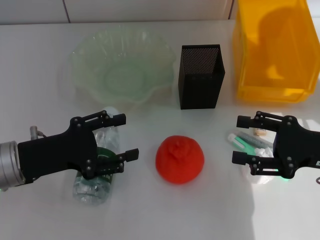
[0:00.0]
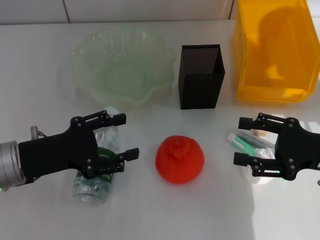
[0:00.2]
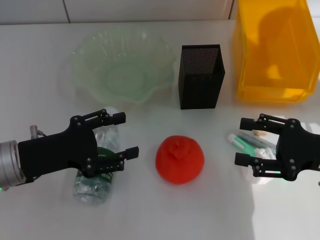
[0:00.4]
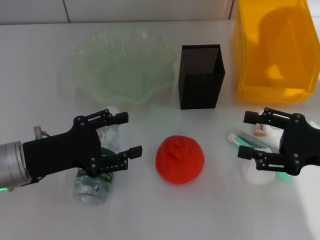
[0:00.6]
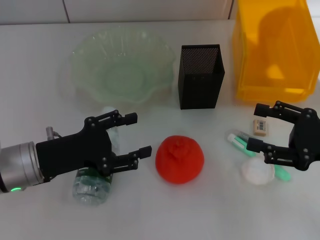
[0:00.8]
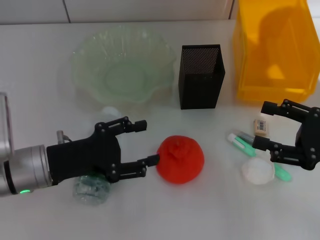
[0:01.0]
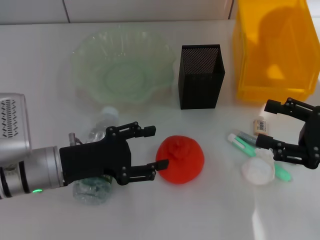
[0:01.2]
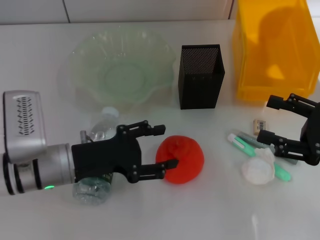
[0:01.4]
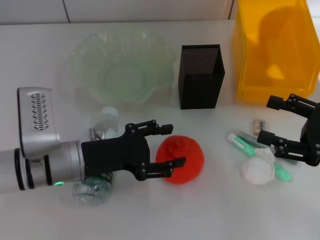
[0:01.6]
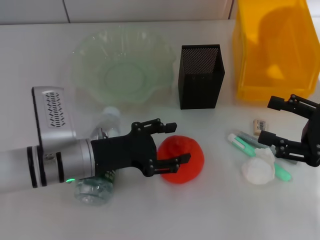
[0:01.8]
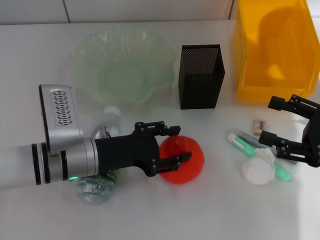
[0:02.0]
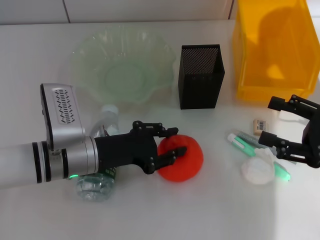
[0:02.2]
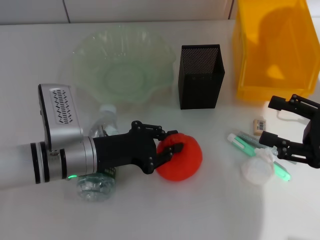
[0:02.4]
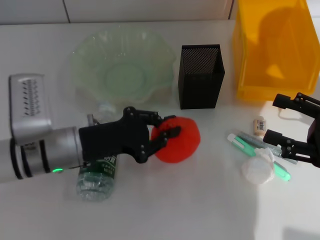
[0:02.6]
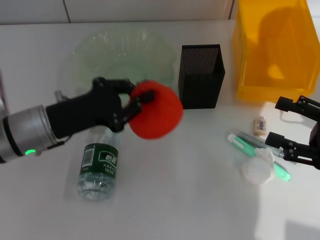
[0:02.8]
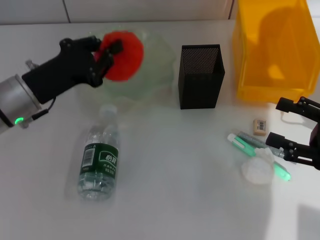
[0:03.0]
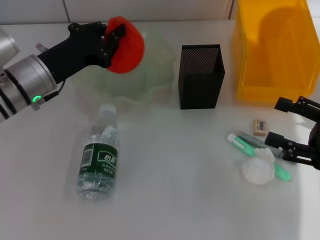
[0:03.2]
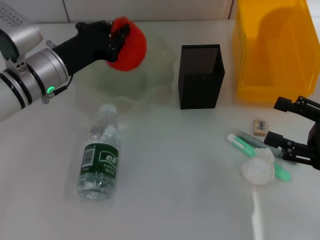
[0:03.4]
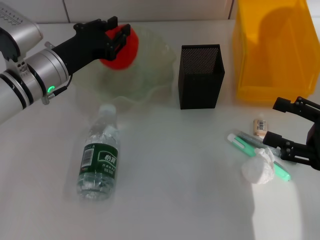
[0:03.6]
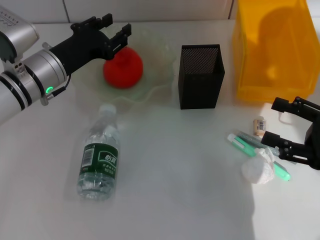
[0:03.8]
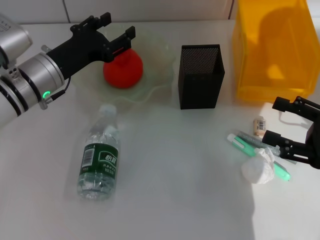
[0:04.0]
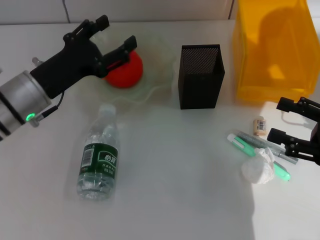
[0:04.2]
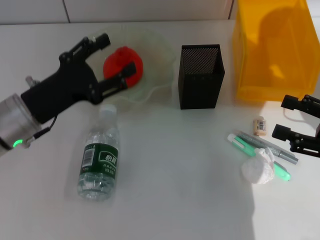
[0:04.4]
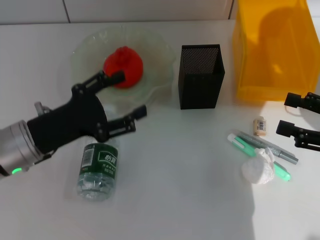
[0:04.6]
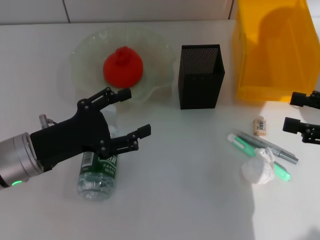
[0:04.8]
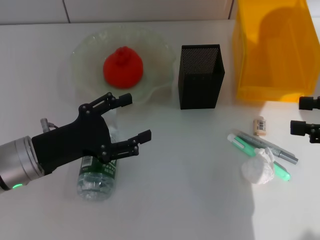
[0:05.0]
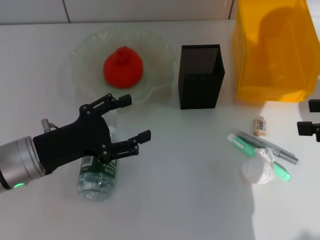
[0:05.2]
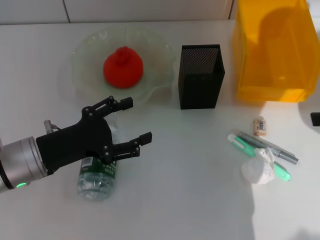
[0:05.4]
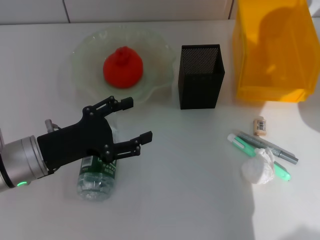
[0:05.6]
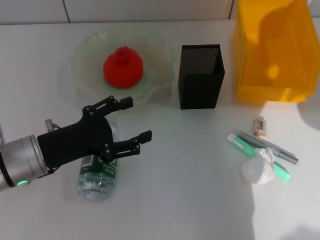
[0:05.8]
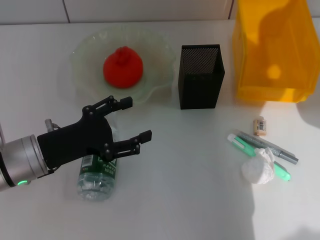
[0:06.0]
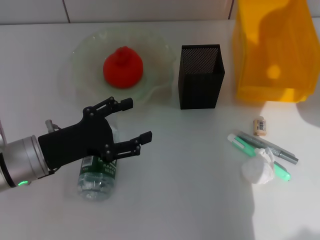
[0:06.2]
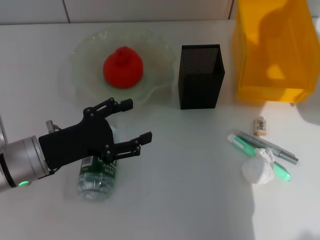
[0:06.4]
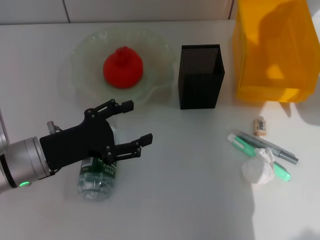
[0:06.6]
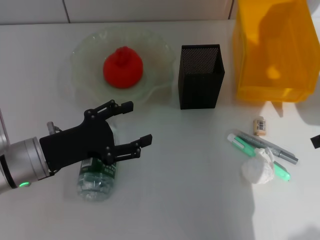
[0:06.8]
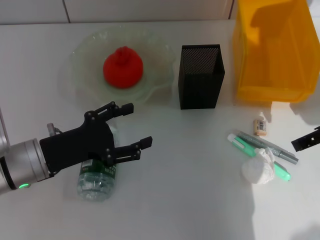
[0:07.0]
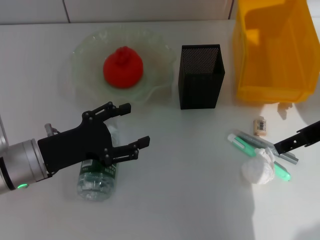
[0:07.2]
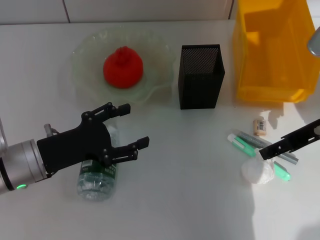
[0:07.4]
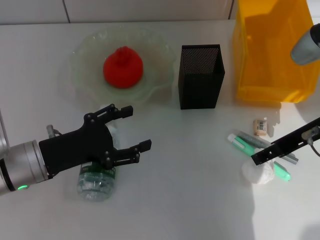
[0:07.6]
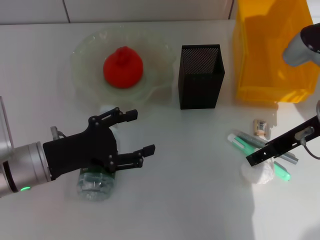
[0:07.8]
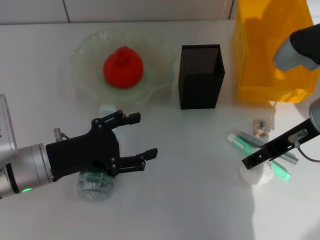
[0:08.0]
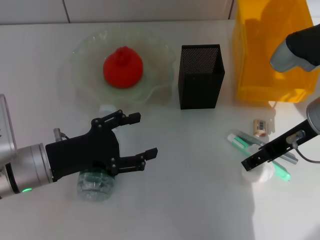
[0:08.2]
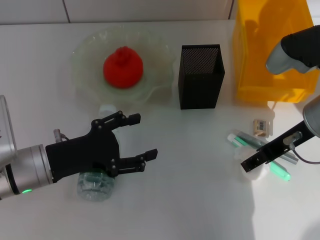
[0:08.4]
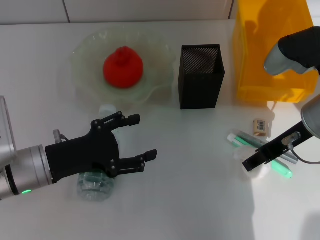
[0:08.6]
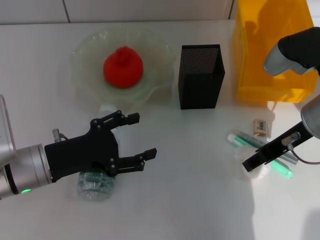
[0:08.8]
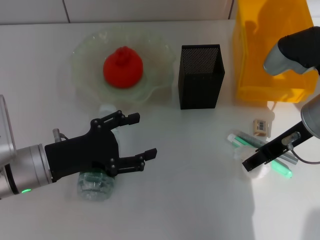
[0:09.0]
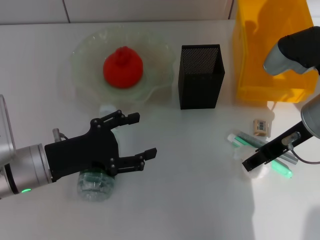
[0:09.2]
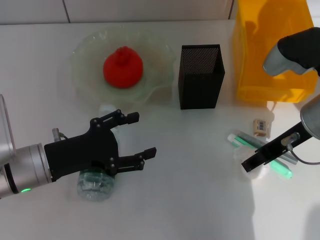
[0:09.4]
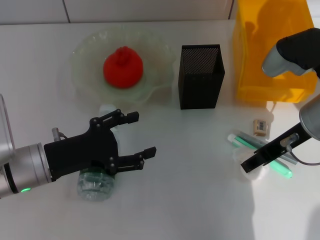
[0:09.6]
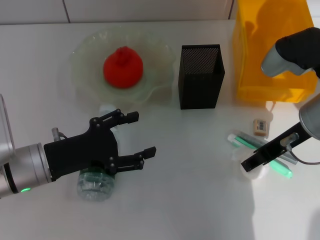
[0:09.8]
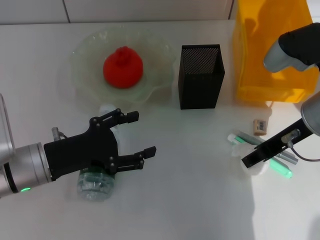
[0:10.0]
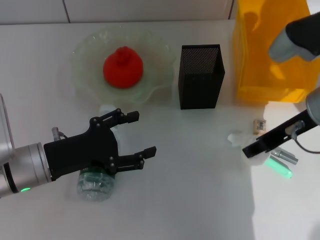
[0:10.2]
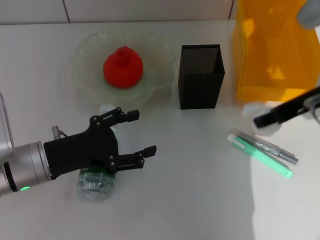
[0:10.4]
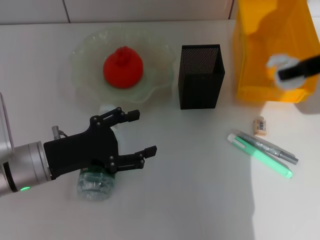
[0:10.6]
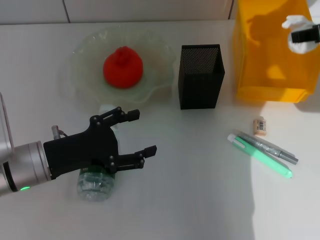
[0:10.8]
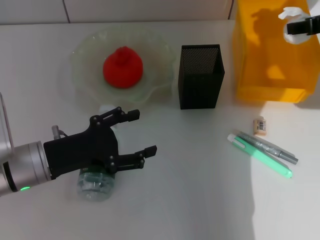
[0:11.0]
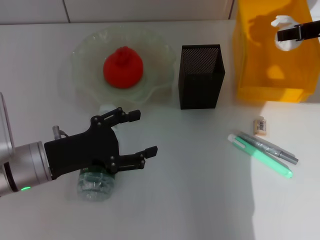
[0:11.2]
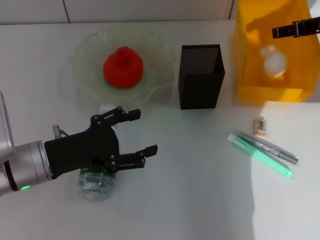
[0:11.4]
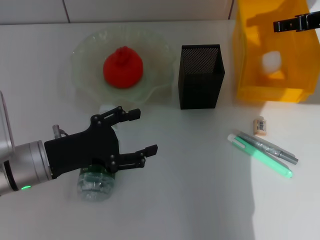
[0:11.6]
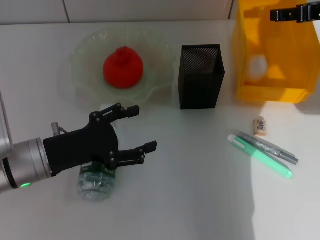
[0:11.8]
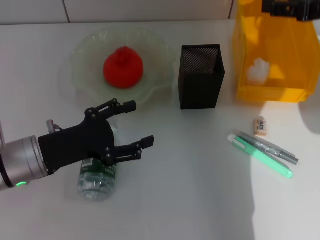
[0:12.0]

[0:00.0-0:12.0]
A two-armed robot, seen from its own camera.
Step, 0.0 to 2.4 s: Grab the orange with the left hand.
Step, 2.6 to 3.8 s: Place the orange into the fruit bowl with the left hand.
Step, 4.0 to 9.6 s: Grab the paper ball with the right hand.
Step, 10.0 to 11.6 s: Place the paper ball into the trash can with the right hand.
0.0 to 1.6 s: The left gripper heads to the right, covering some 5 cm.
1.6 to 3.0 s: The left gripper goes approximately 10 cm forward, upward and to the left, and closes.
3.0 to 4.4 s: The left gripper opens up.
4.4 to 6.0 s: The right gripper travels upward by roughly 15 cm.
6.0 to 7.6 s: The right gripper moves to the left and downward, about 15 cm.
7.6 to 9.0 s: The grippers stay close to where they were, moving slightly.
9.0 to 10.4 s: The right gripper travels upward by approximately 5 cm.
10.4 to 12.0 s: The right gripper moves to the right, roughly 5 cm, travels forward and back again, about 10 cm each way, and opens.

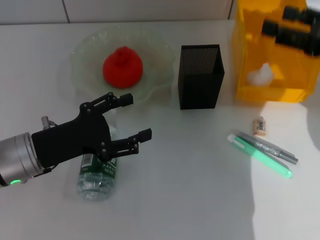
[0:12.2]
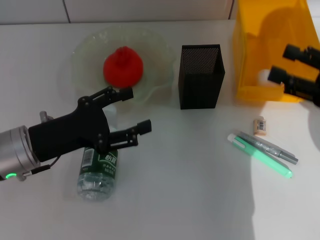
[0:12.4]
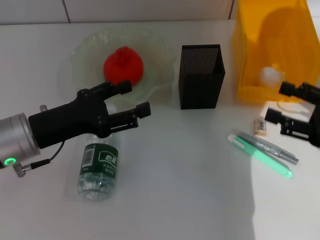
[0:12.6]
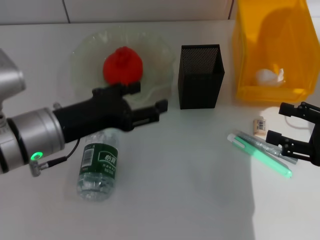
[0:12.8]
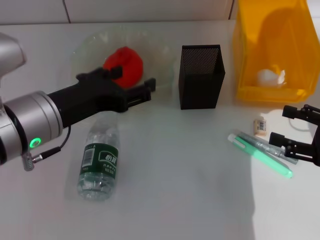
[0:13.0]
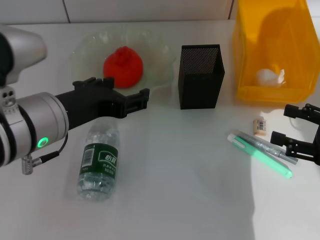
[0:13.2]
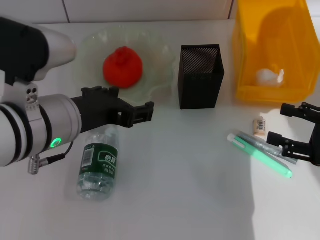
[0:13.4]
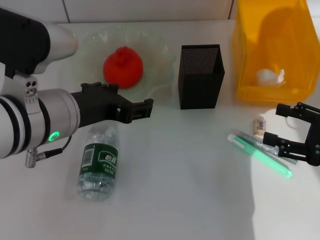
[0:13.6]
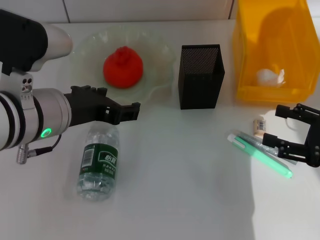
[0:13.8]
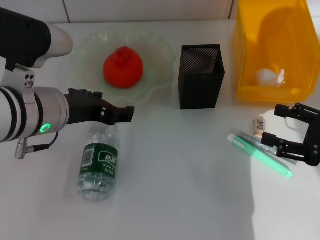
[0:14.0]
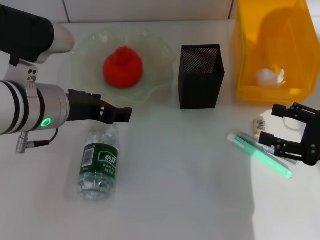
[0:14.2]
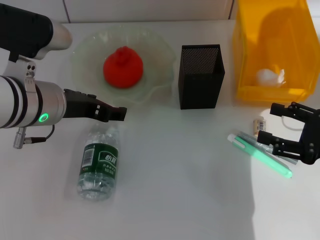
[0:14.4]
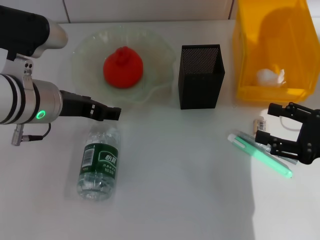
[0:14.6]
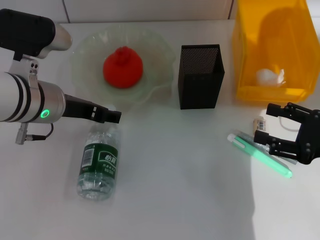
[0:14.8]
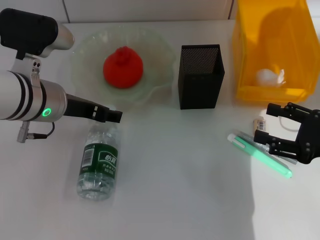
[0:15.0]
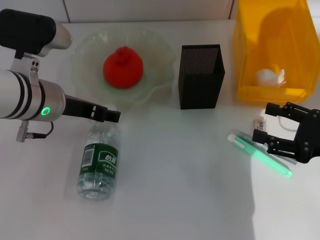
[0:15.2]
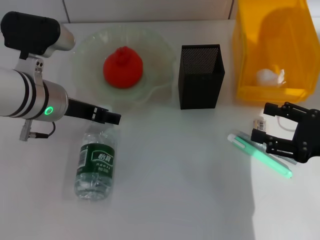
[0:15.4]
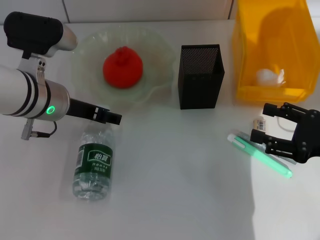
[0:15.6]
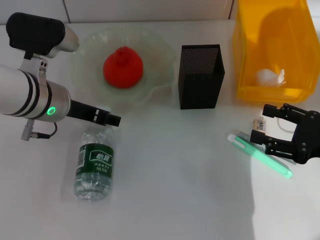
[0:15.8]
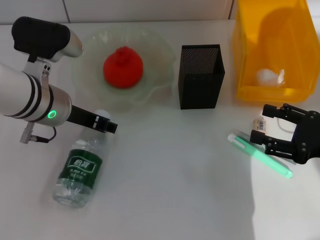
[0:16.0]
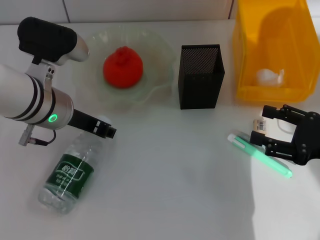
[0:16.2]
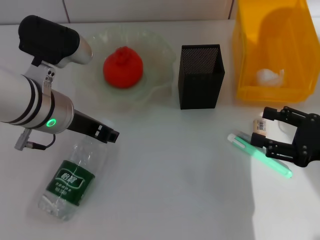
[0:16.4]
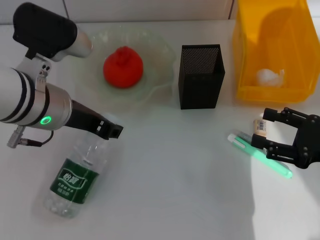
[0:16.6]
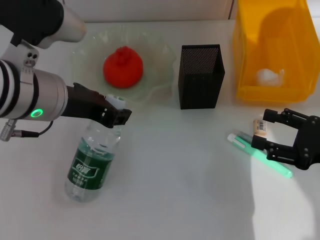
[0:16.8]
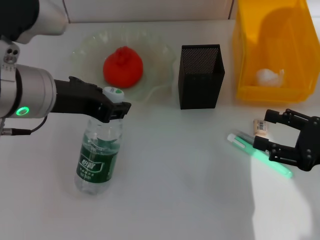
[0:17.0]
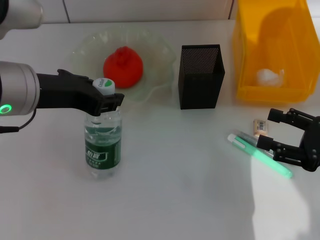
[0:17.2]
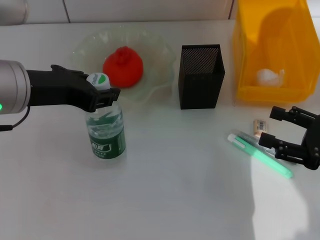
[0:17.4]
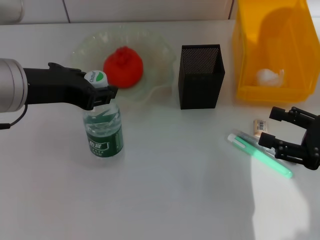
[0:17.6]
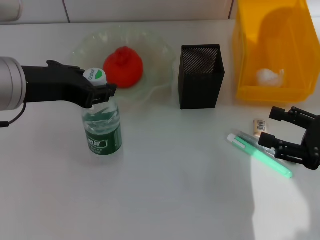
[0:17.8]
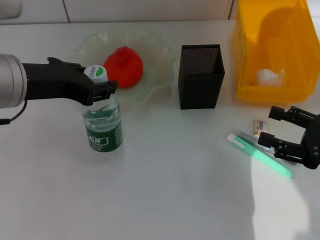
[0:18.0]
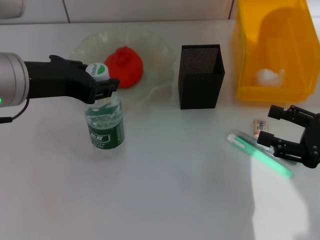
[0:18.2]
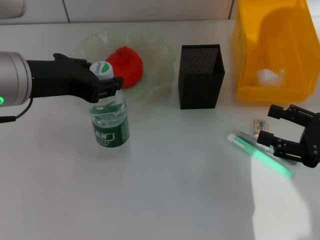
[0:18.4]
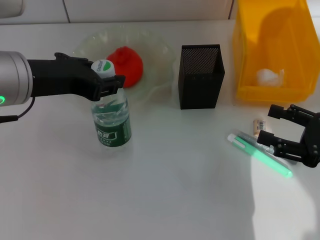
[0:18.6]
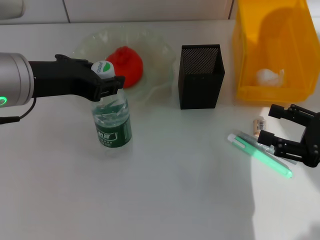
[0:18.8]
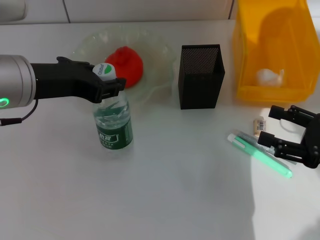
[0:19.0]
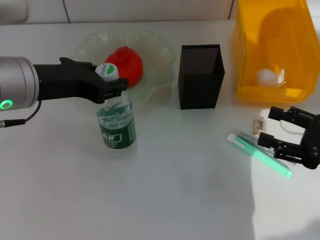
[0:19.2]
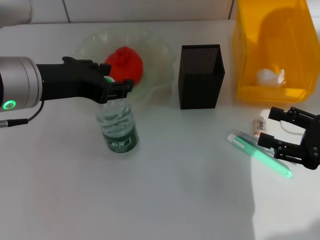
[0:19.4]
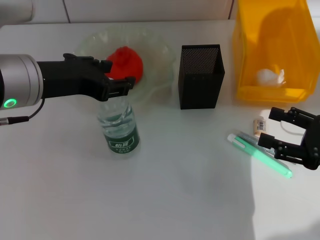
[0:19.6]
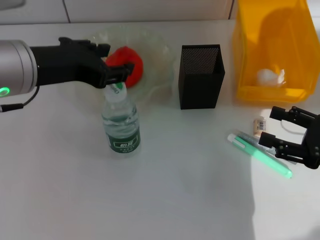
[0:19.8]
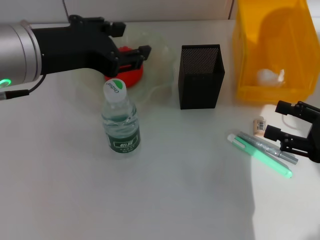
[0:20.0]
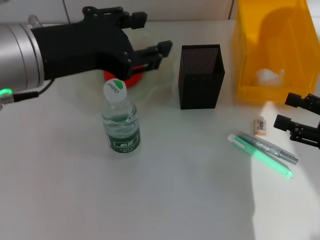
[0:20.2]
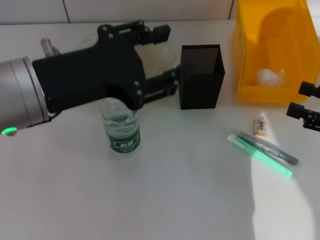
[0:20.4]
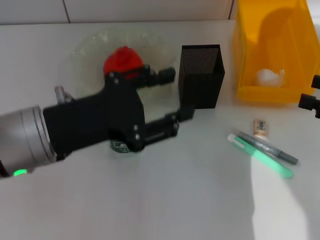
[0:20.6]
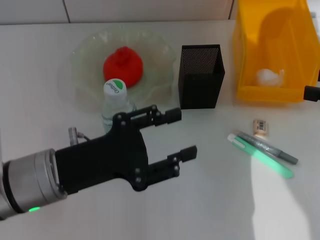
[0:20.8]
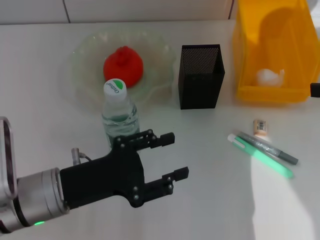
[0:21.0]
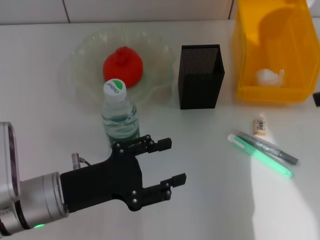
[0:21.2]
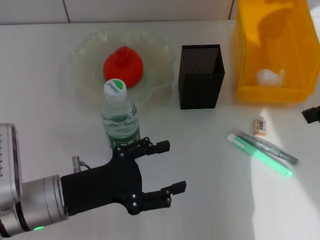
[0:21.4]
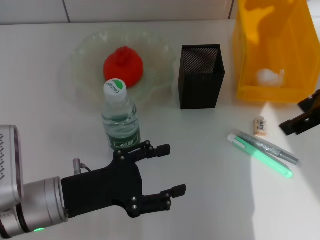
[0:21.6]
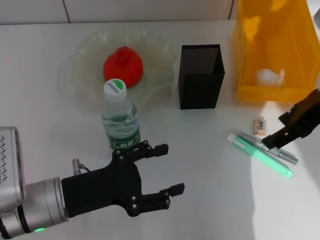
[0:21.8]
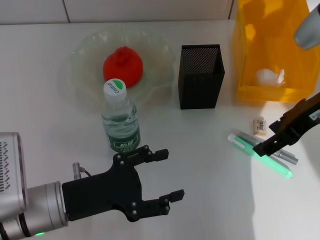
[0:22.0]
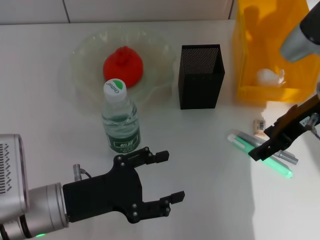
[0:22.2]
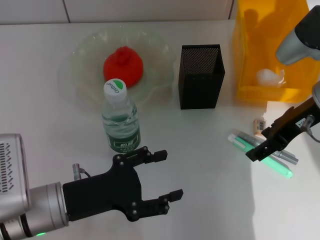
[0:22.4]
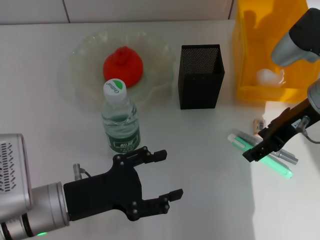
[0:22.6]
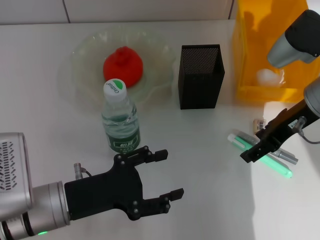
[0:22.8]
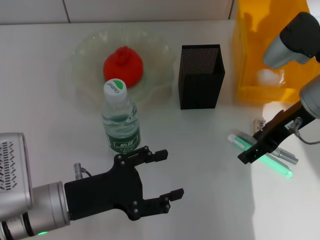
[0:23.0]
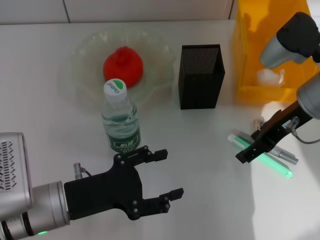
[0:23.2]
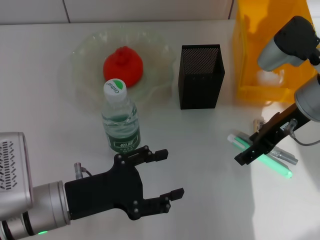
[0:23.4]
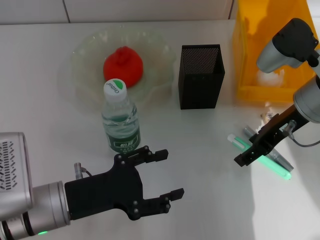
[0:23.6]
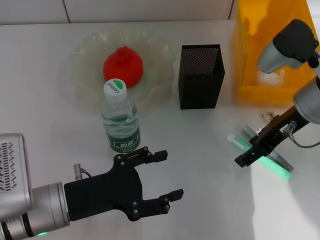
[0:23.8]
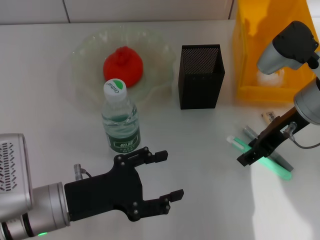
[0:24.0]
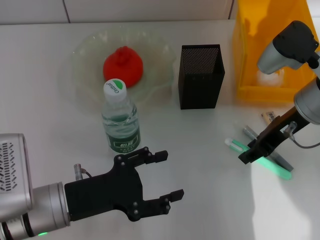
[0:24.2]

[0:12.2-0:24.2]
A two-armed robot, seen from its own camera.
Step, 12.2 to 16.2 s: Grab the water bottle with the left hand.
Step, 16.4 to 19.6 s: Place the water bottle on the table with the left hand.
12.2 to 13.8 s: The right gripper is displaced downward and backward by approximately 10 cm, while the left gripper heads upward and to the right, covering about 15 cm.
13.8 to 15.2 s: The left gripper shifts roughly 5 cm forward.
15.2 to 16.6 s: The left gripper closes.
16.6 to 18.2 s: The left gripper is displaced upward by some 5 cm.
18.2 to 19.8 s: The grippers stay close to where they were, moving slightly.
19.8 to 21.2 s: The left gripper heads downward and backward, covering about 20 cm. Meanwhile the right gripper goes roughly 15 cm upward.
21.2 to 22.6 s: The right gripper travels to the left, downward and forward by about 15 cm.
22.6 to 24.2 s: The grippers make only small movements.
